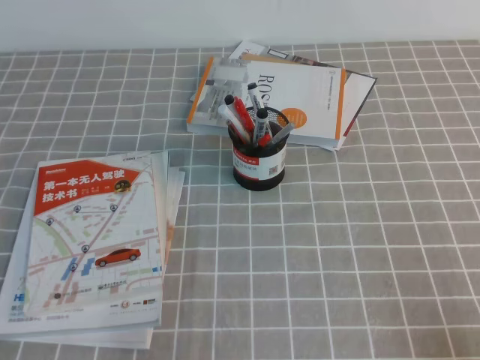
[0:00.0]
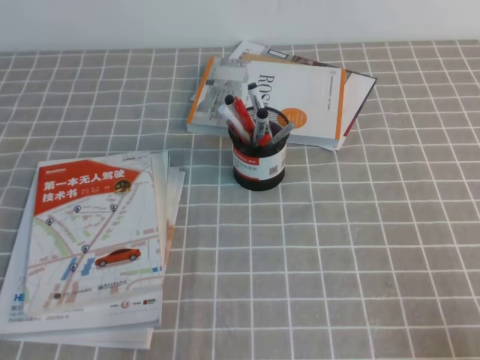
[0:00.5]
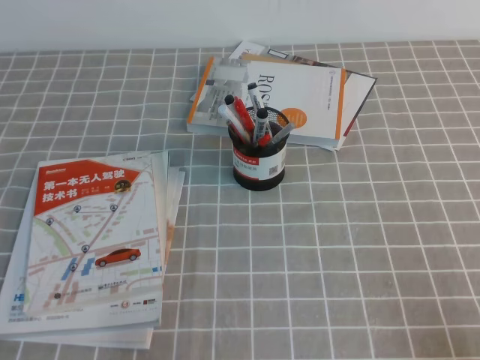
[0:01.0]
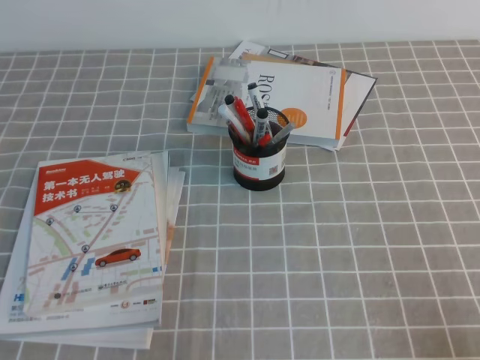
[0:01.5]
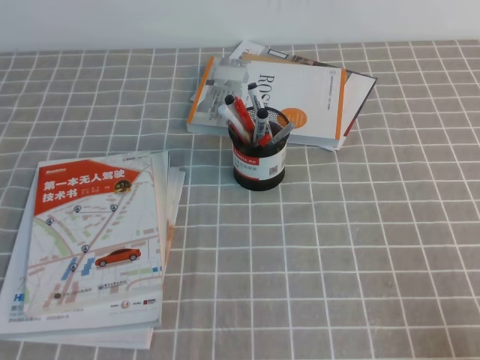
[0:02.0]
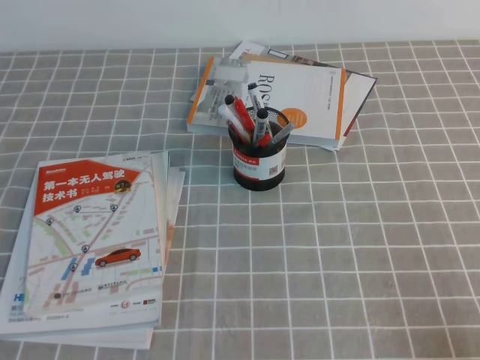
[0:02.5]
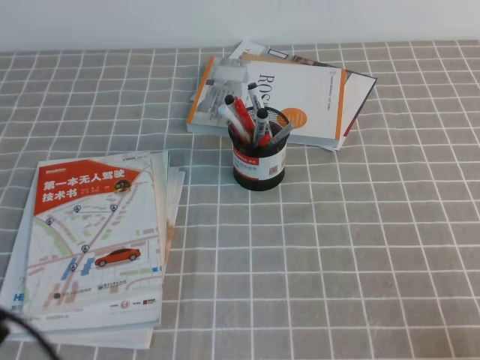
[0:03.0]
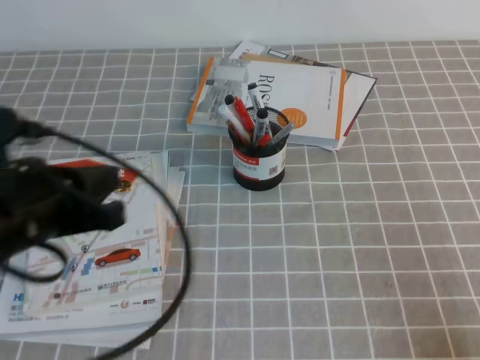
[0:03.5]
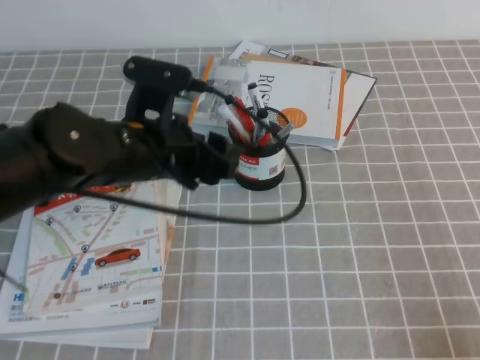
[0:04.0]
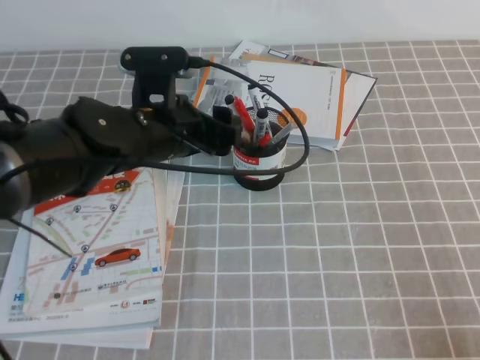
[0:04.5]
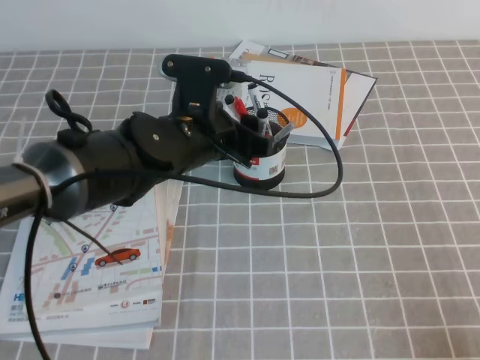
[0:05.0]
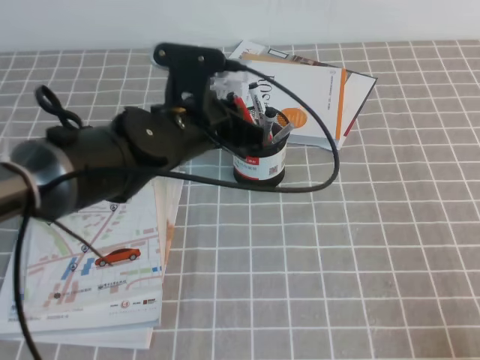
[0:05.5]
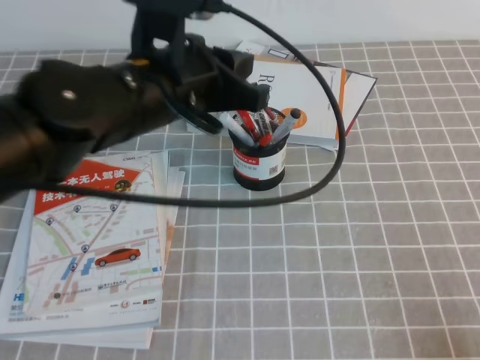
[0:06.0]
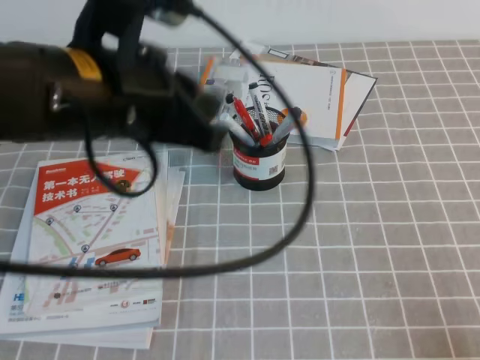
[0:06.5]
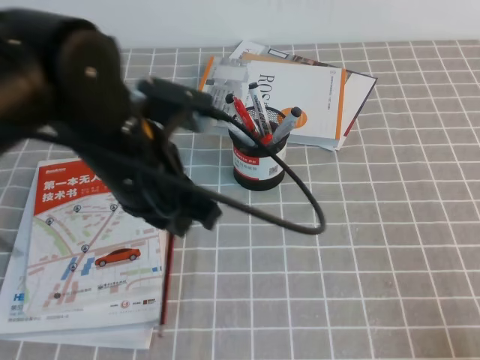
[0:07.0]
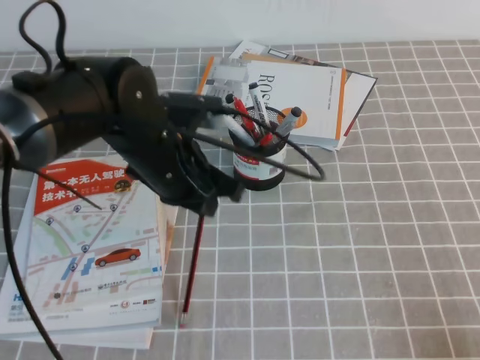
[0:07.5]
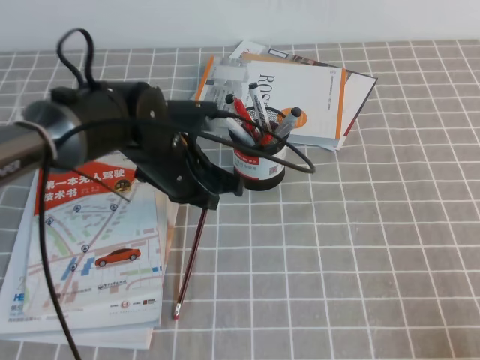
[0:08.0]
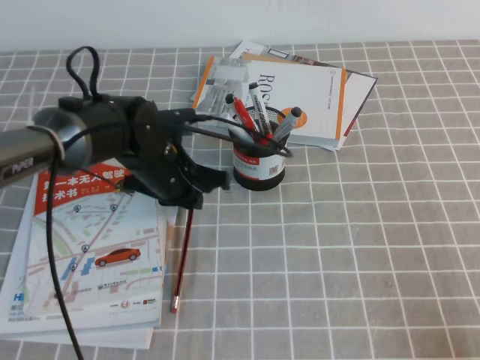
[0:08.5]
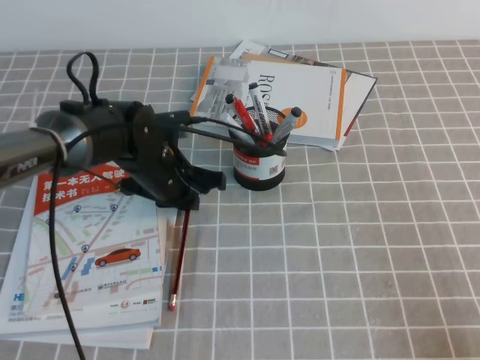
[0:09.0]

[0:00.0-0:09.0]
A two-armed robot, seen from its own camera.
0:02.0 to 0:04.5: The left gripper moves forward and to the right, approximately 35 cm, and opens.
0:04.5 to 0:07.0: The left gripper heads backward and upward, covering about 10 cm, and closes.
0:07.0 to 0:09.0: The left gripper shifts some 20 cm downward and forward.

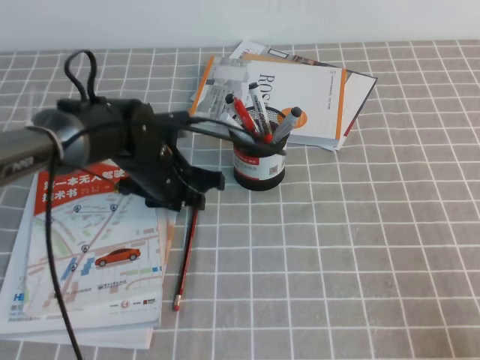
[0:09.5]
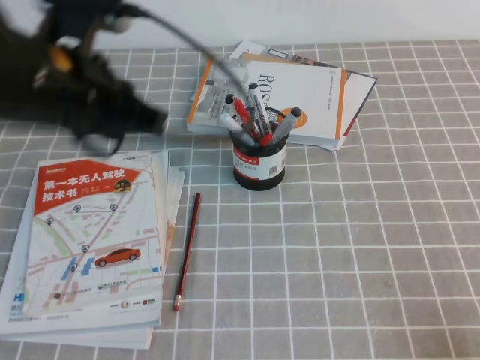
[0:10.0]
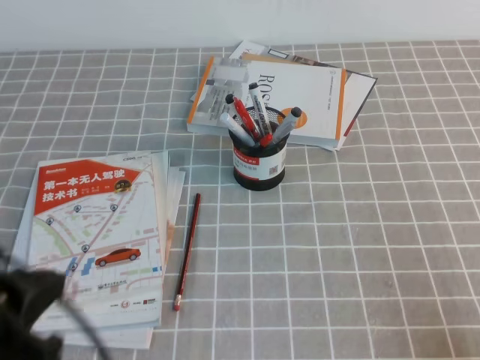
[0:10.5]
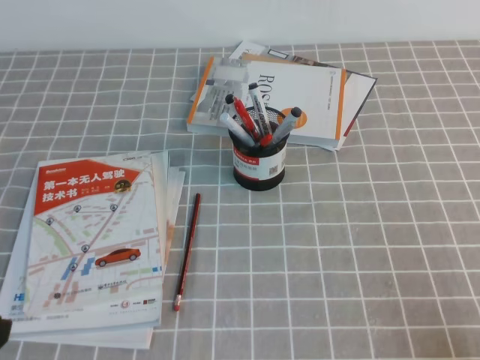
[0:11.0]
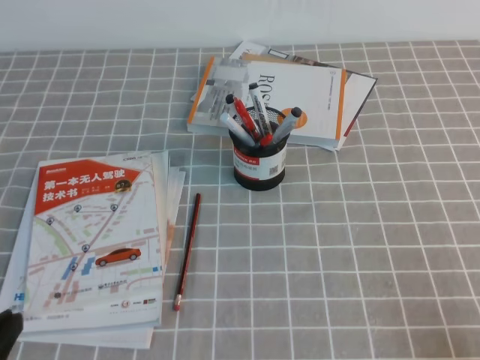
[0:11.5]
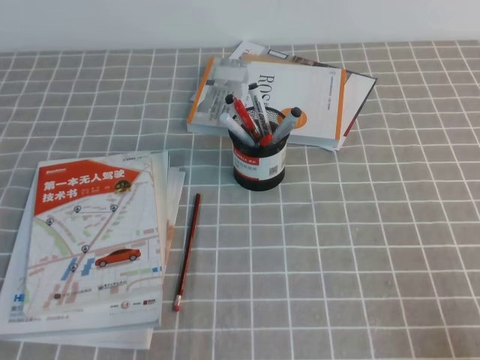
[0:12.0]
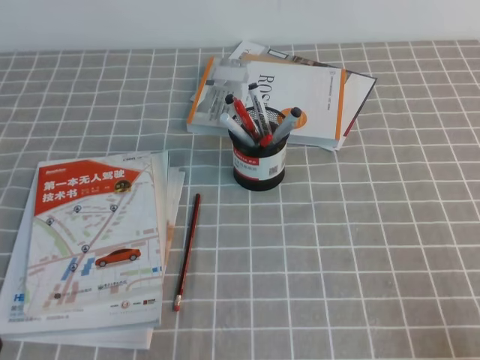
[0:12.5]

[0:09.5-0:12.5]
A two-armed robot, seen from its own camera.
Step, 0:09.5 to 0:12.5: Pick up the pen from the pen holder.
0:09.5 to 0:11.0: The left gripper shifts approximately 35 cm backward and to the left, and closes.
0:11.0 to 0:12.5: The left gripper goes about 10 cm downward.
